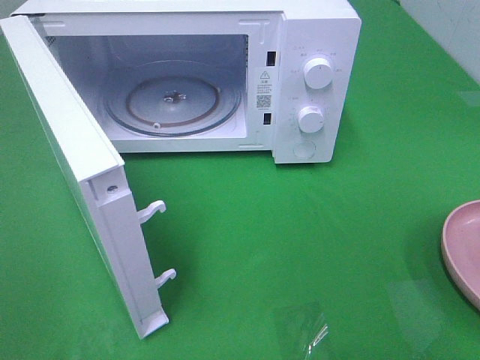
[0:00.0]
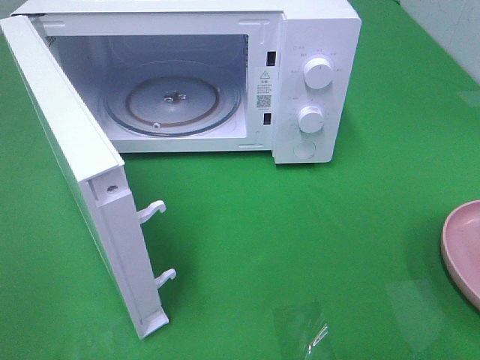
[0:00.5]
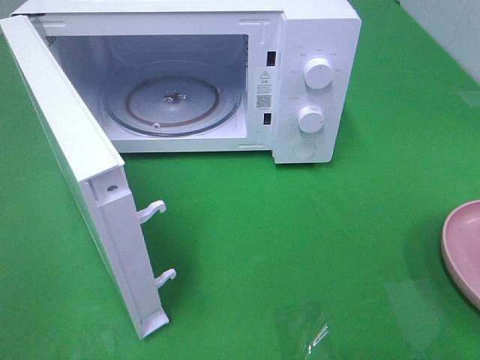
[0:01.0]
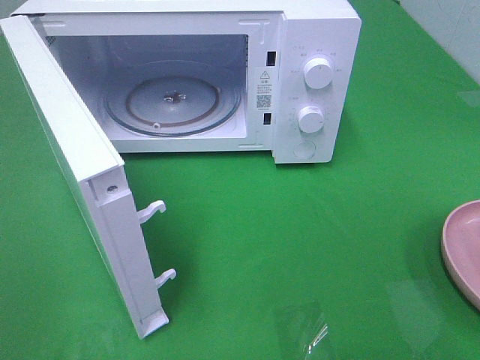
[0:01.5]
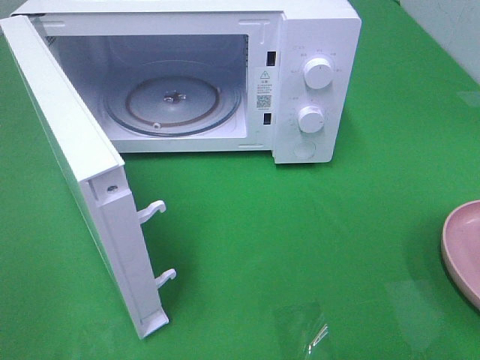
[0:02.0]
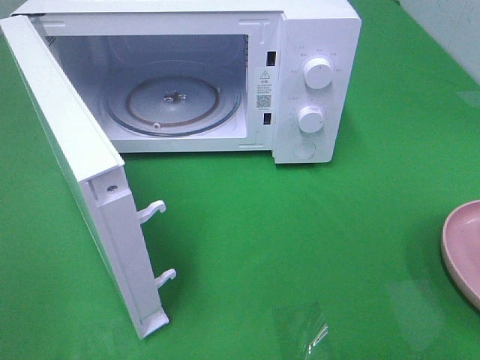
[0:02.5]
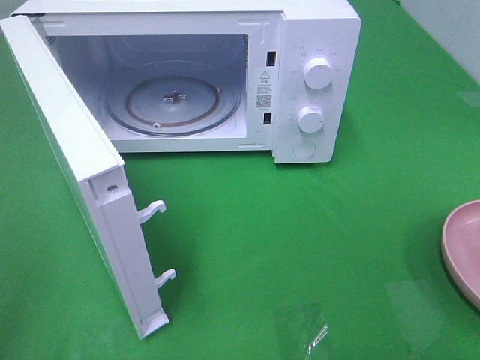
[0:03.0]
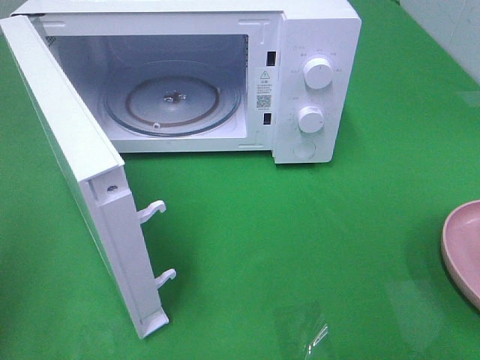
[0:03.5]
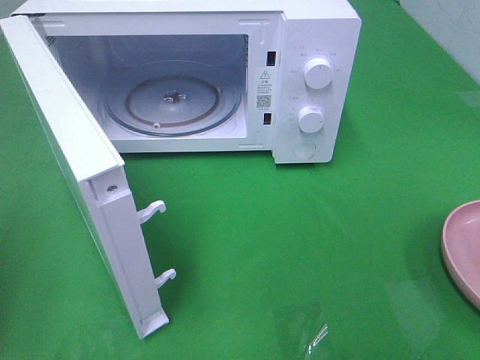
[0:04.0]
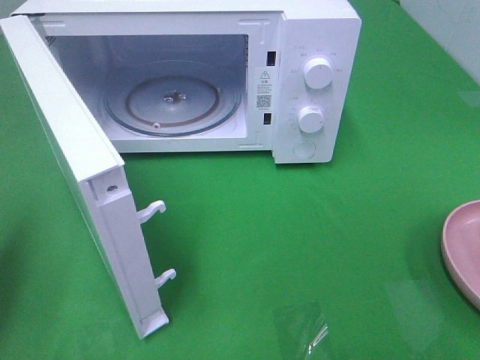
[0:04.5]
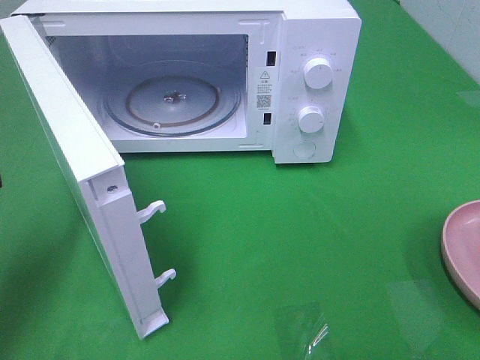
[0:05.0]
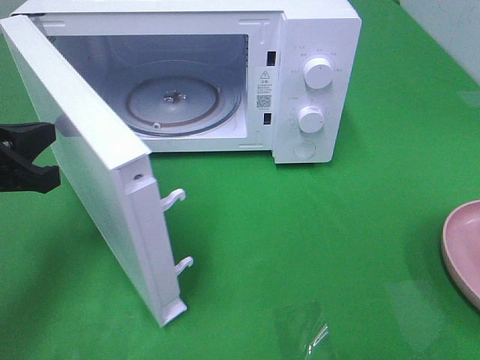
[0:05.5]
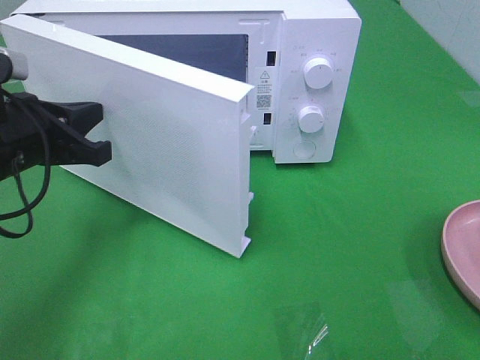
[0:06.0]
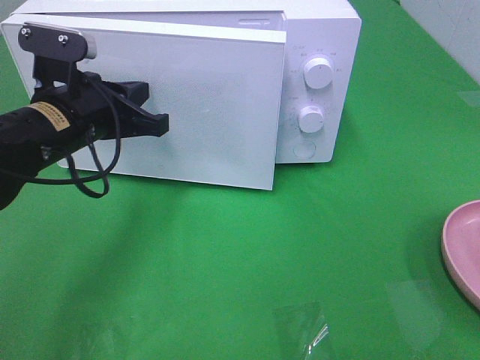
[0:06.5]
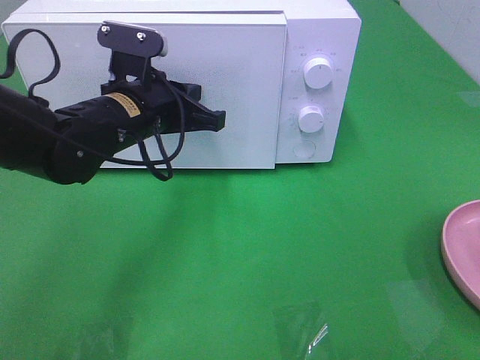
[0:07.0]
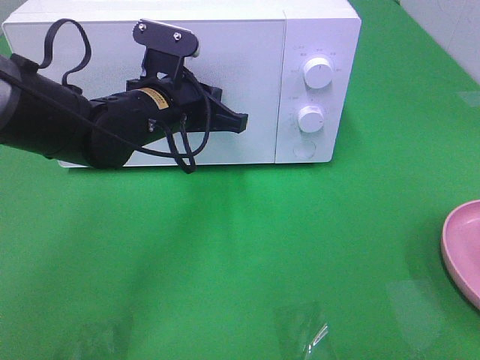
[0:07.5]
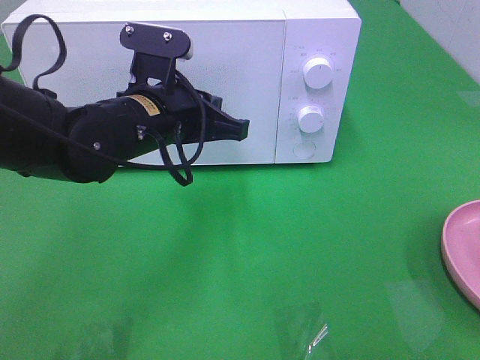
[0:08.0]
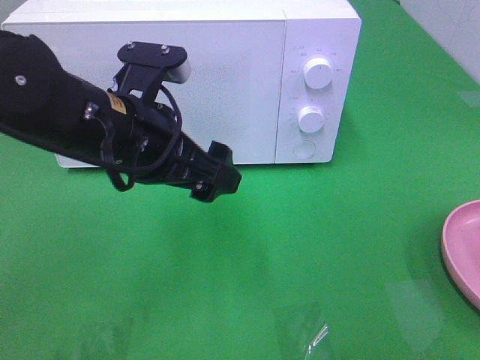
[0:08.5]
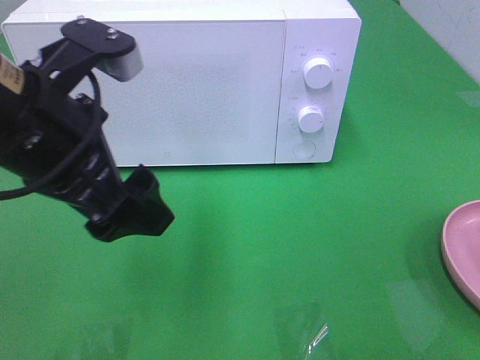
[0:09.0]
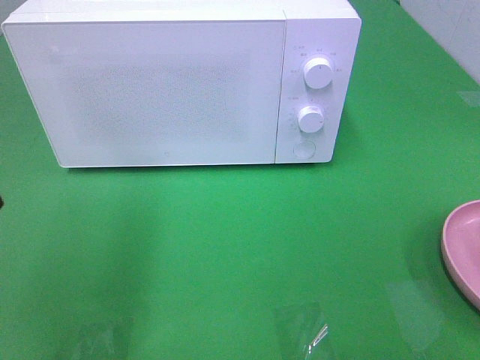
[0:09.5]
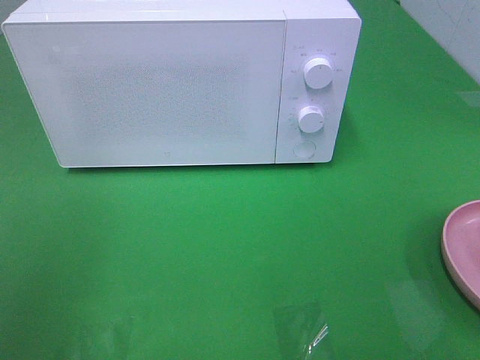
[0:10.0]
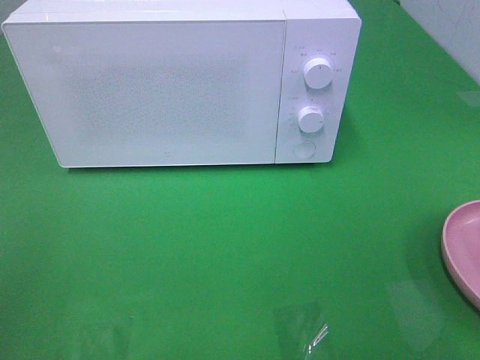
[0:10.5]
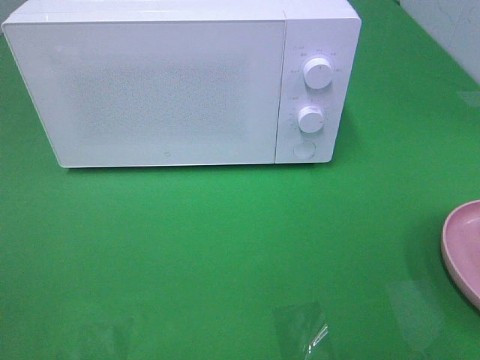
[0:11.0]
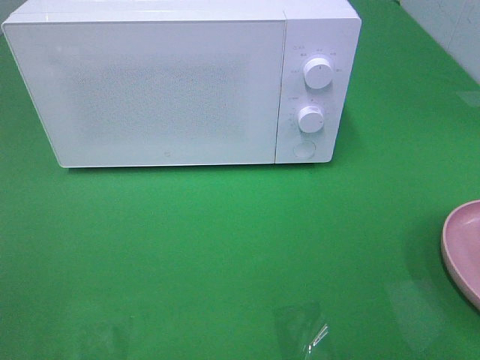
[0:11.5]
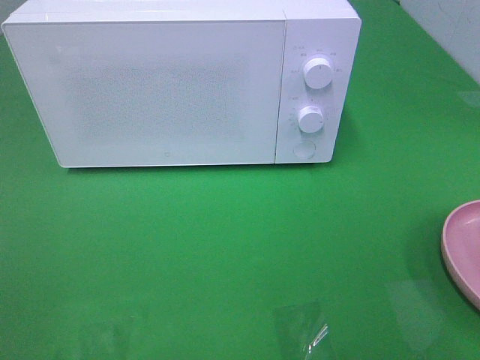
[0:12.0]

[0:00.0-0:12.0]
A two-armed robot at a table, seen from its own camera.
Task of the whole recording: Heat the burger.
Step, 0:00.0 to 0:07.5: Left hand: close the microwave door.
0:04.0 to 0:06.0: The left gripper shifts some 20 cm forward, to the right and downward.
0:06.0 to 0:08.0: The left gripper travels to the right by roughly 15 cm.
0:08.0 to 0:10.0: The left gripper travels to the left, backward and upward by about 30 cm, and opens.

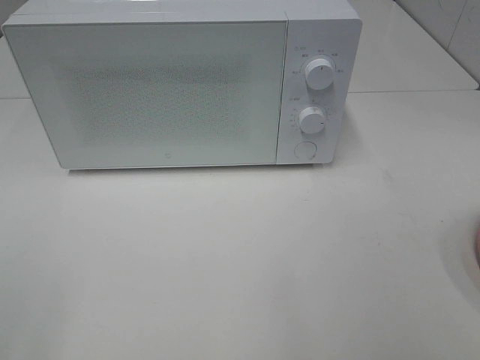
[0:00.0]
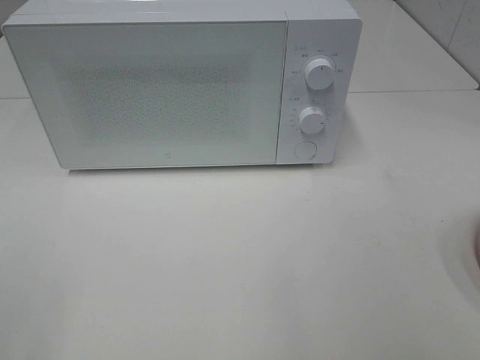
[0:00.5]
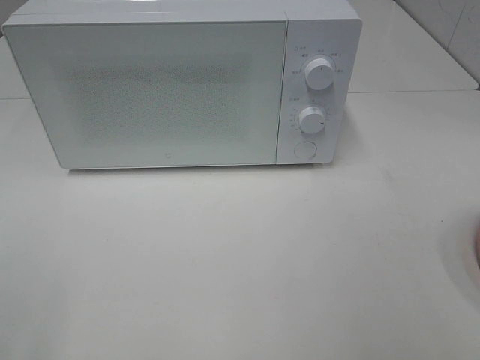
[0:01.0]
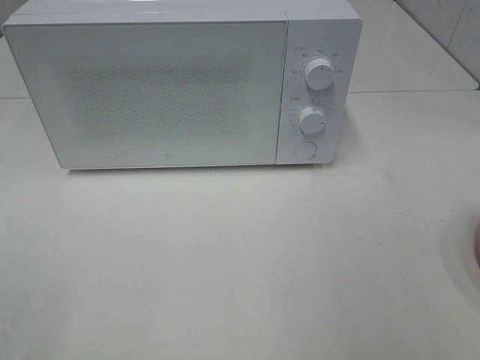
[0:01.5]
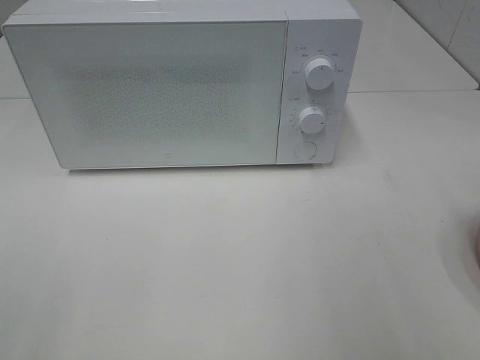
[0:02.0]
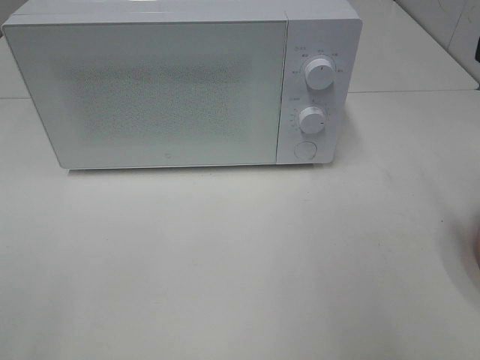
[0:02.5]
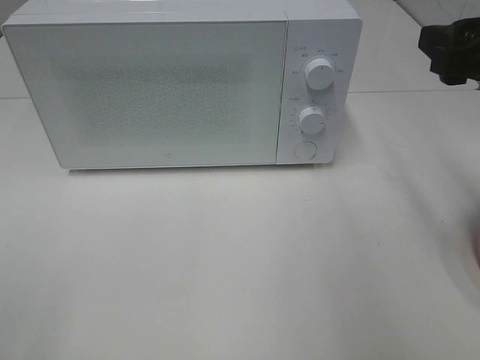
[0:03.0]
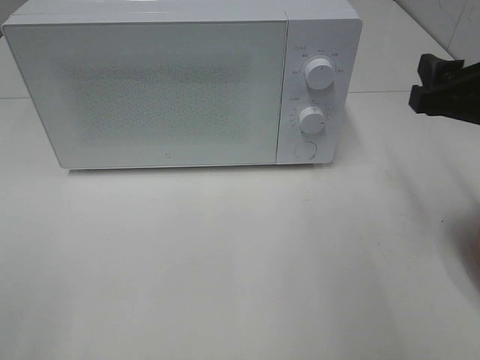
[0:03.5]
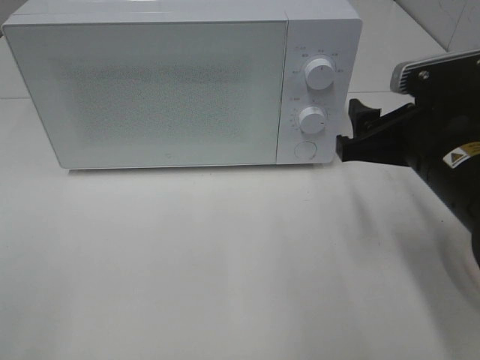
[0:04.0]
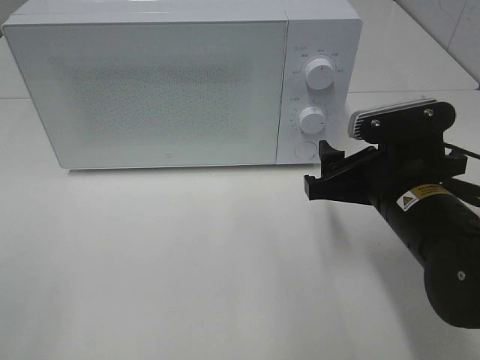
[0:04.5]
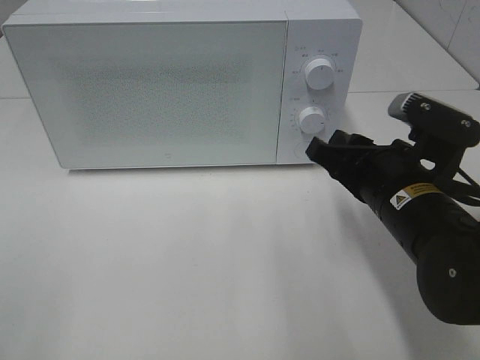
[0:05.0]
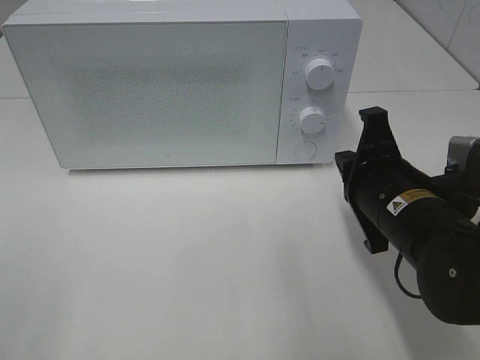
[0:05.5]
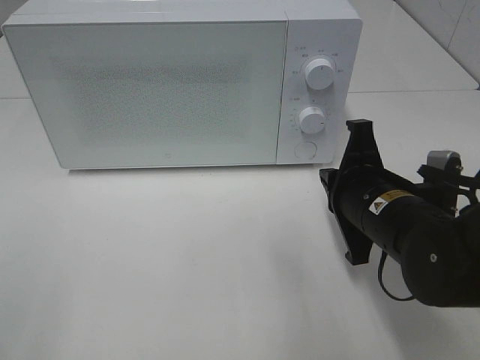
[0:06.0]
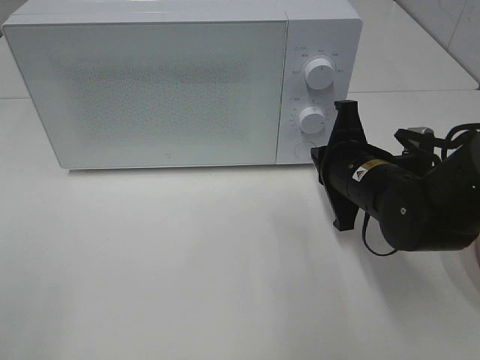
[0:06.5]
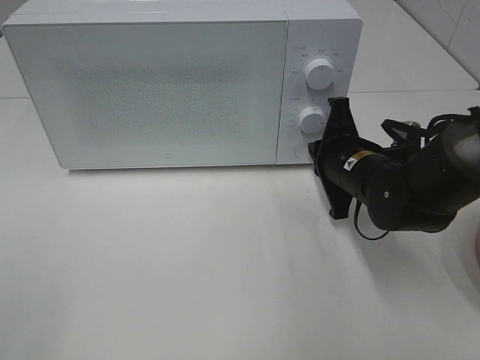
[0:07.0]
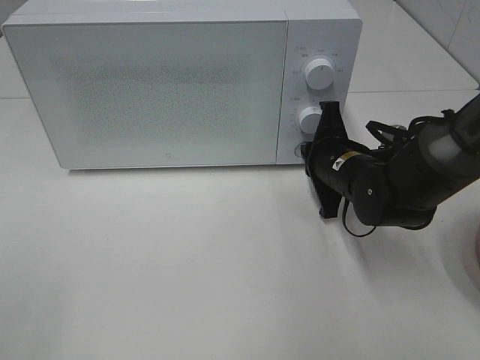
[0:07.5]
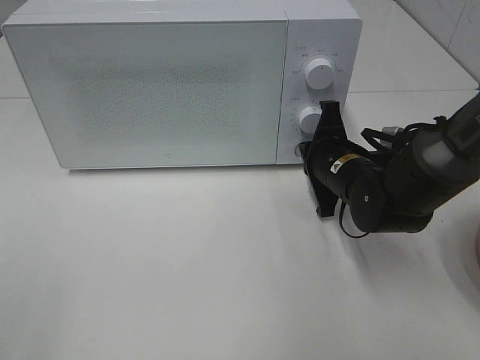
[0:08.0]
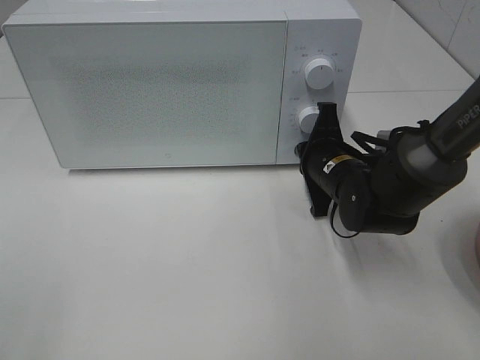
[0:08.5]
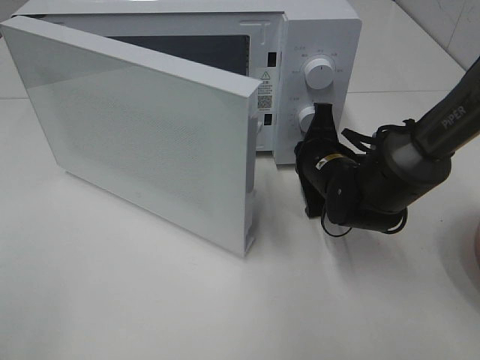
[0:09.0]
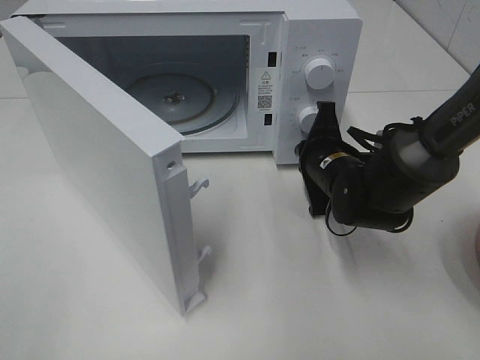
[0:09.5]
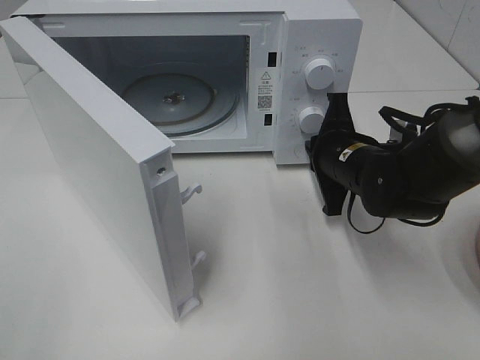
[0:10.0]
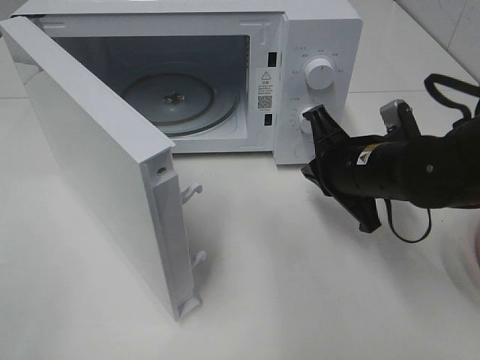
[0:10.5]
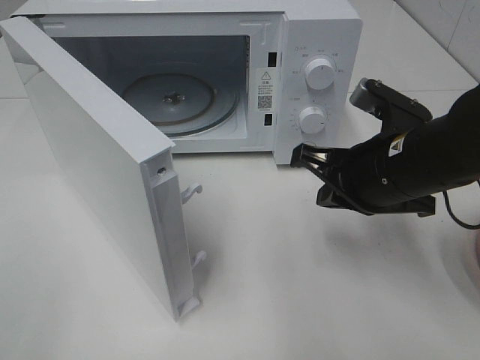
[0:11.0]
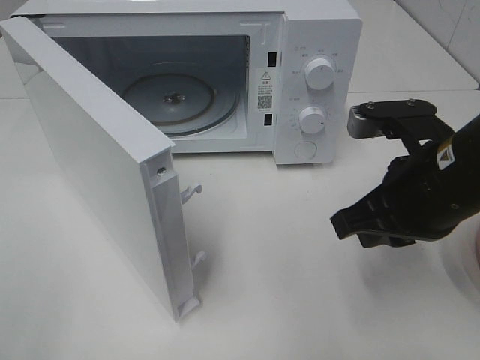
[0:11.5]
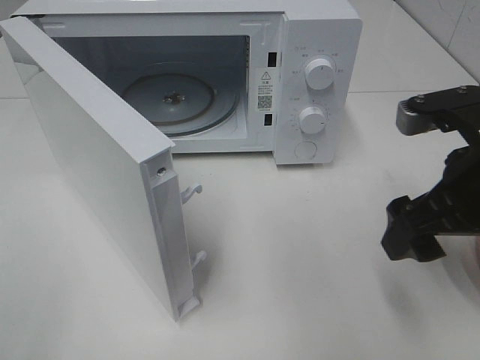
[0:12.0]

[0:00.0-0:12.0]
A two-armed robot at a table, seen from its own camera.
Task of the whole recording: Heat the burger.
Step, 0:00.0 to 0:09.5: Right hand: press the switch.
0:02.0 to 0:04.0: The right gripper heads downward, forward and to the left, covering some 20 cm.
0:04.0 to 0:06.0: The right gripper goes approximately 5 cm downward, and closes up.
0:06.0 to 0:08.0: The right gripper shifts approximately 10 cm forward.
0:10.0 to 0:12.0: The right gripper goes roughly 20 cm backward, upward and to the right, and opens its fingers.

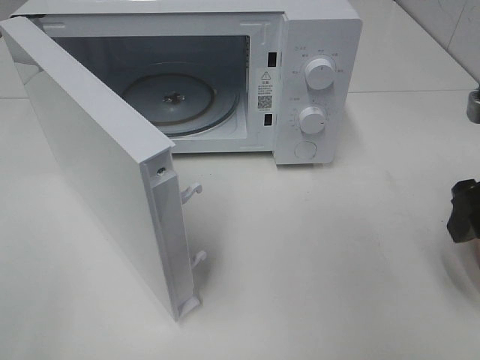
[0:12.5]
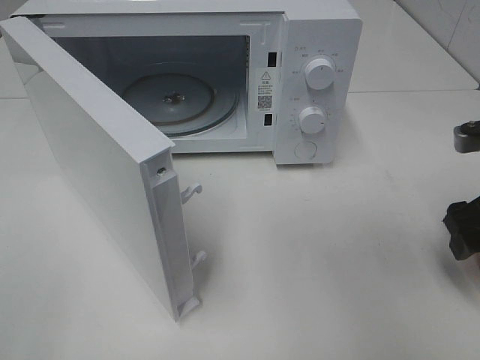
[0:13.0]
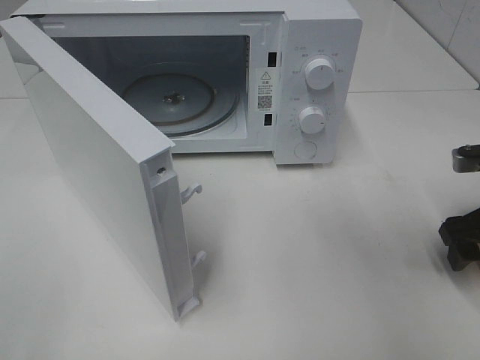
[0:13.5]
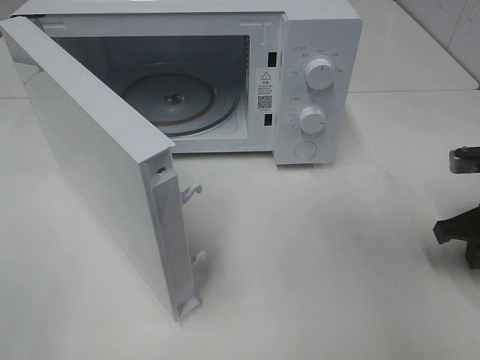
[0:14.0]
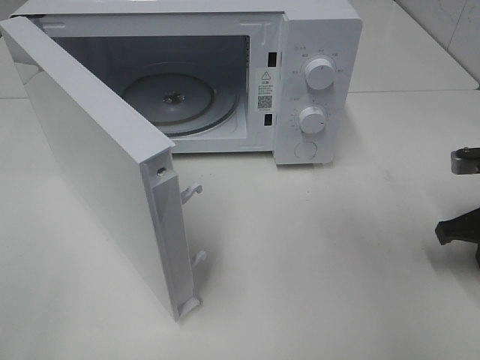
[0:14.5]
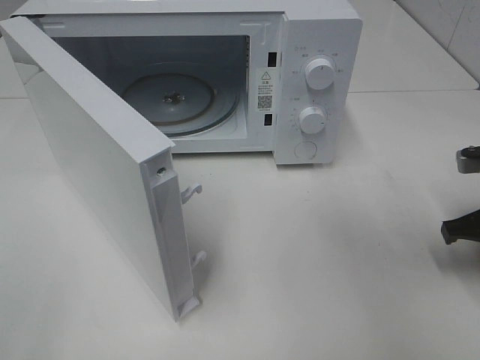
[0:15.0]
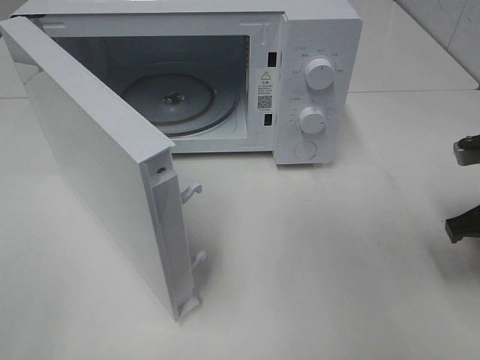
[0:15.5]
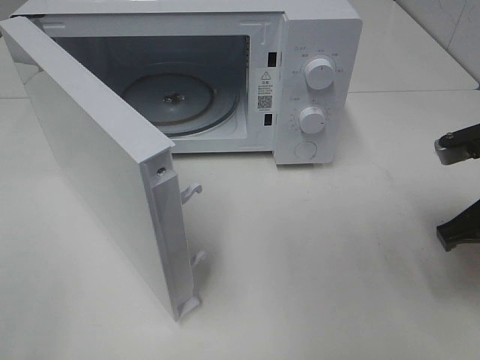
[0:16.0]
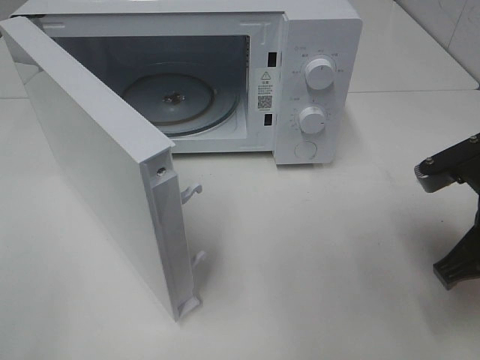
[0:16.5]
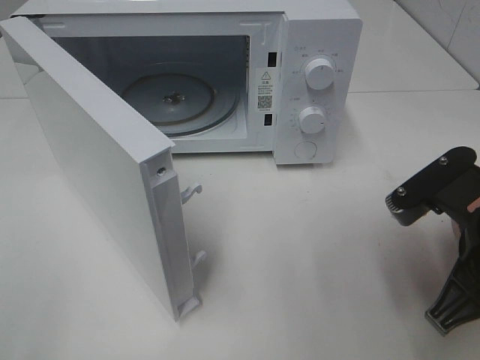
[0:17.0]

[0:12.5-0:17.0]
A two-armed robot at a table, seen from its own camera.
Task of the whole recording: Heat the burger.
Step, 0:12.5 to 0:14.5: Right hand: grab the plate with the hamburger.
0:12.5 to 0:14.5: The right gripper heads downward, covering approximately 10 cm, and closes.
0:14.5 to 0:17.0: The right gripper moves to the left, backward and upward, some 15 cm.
